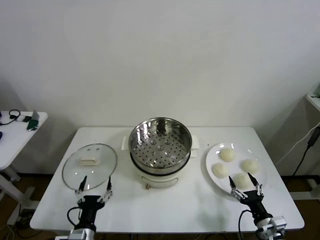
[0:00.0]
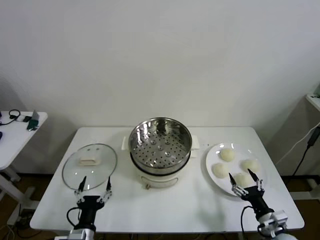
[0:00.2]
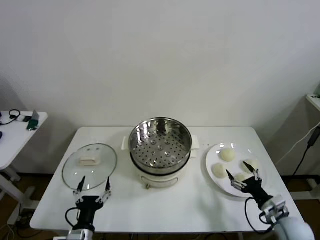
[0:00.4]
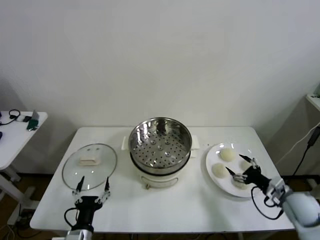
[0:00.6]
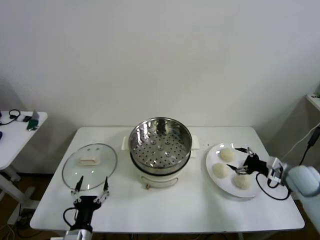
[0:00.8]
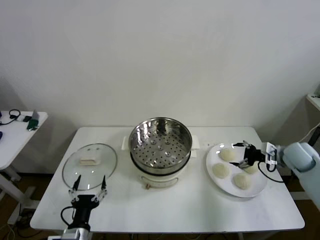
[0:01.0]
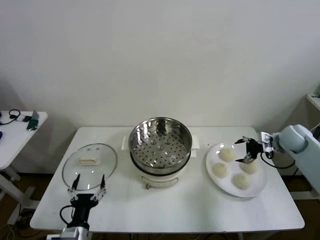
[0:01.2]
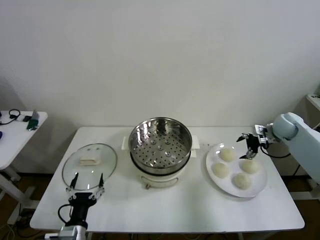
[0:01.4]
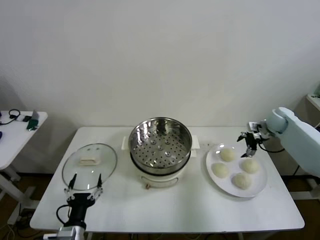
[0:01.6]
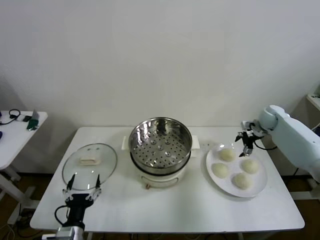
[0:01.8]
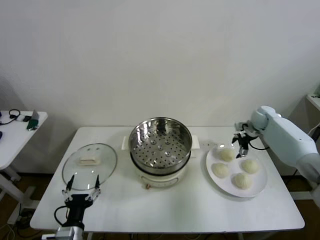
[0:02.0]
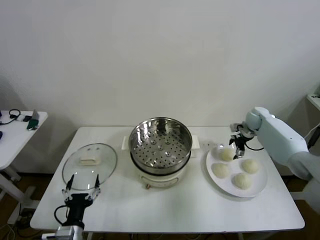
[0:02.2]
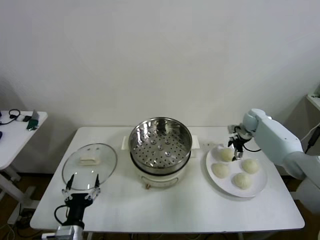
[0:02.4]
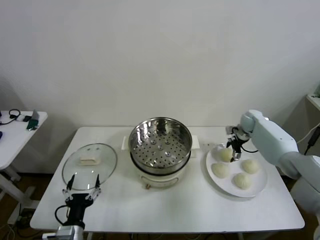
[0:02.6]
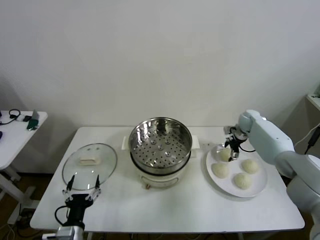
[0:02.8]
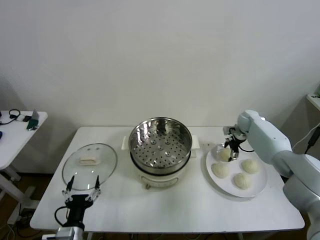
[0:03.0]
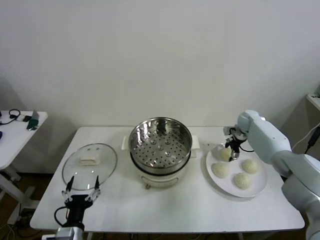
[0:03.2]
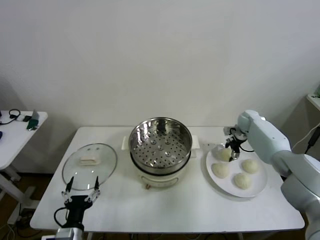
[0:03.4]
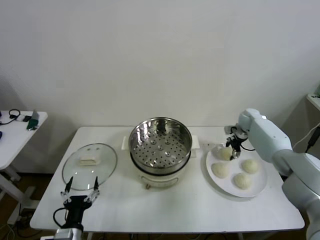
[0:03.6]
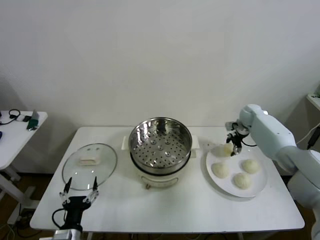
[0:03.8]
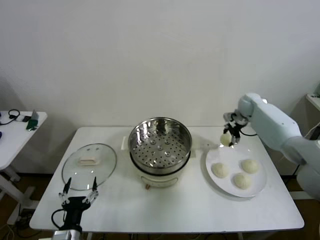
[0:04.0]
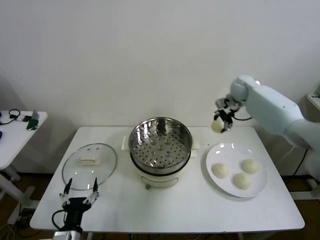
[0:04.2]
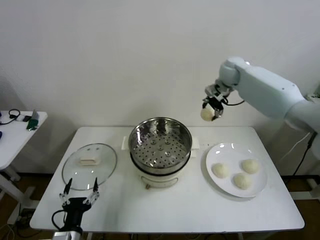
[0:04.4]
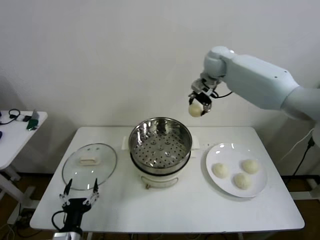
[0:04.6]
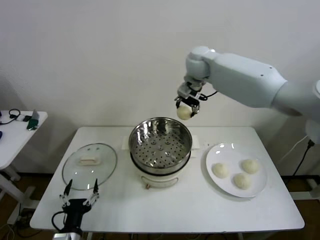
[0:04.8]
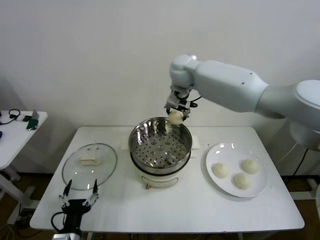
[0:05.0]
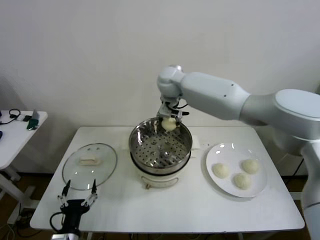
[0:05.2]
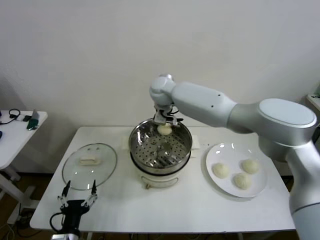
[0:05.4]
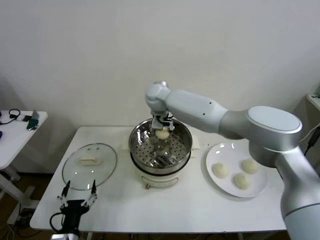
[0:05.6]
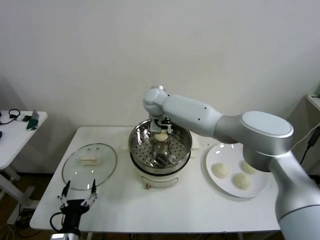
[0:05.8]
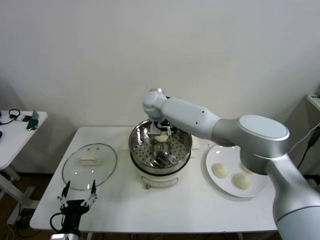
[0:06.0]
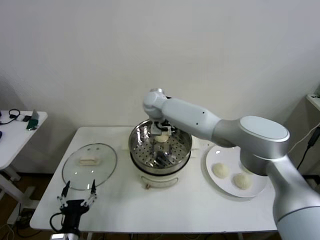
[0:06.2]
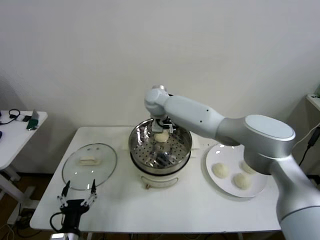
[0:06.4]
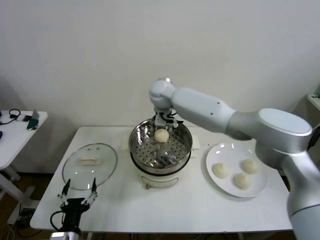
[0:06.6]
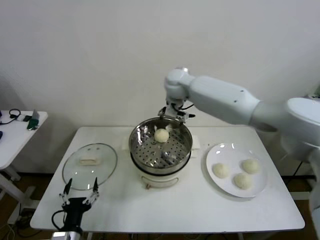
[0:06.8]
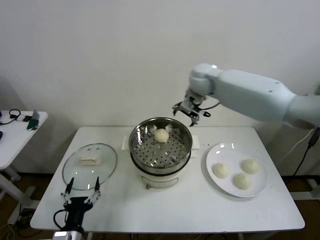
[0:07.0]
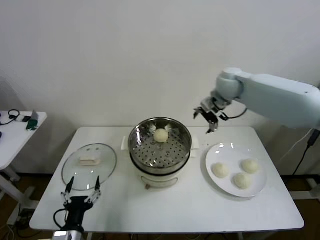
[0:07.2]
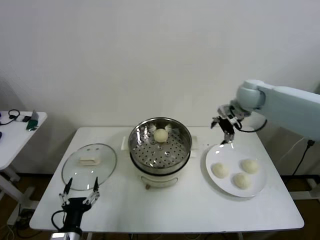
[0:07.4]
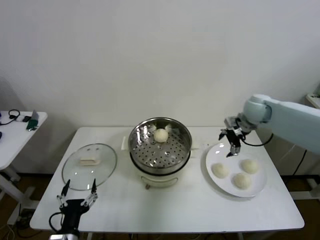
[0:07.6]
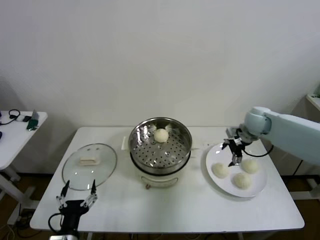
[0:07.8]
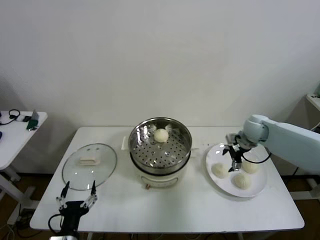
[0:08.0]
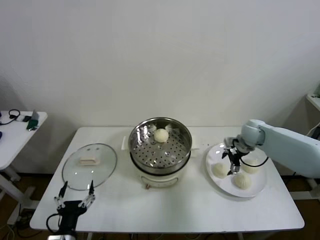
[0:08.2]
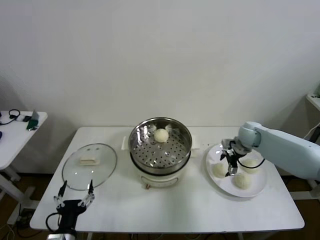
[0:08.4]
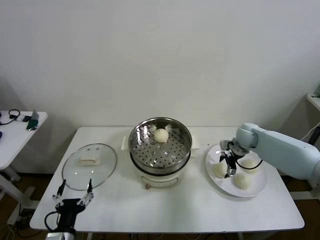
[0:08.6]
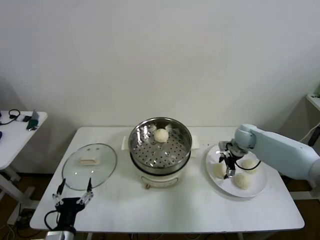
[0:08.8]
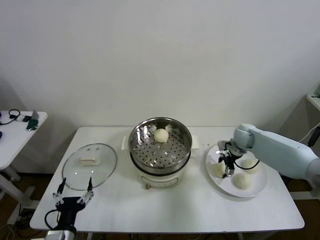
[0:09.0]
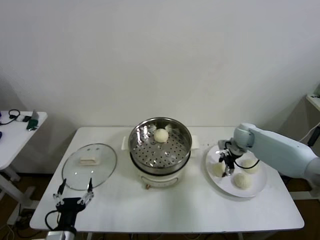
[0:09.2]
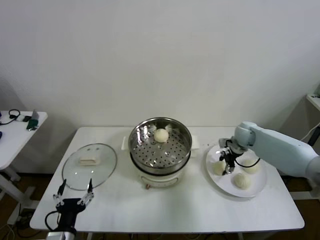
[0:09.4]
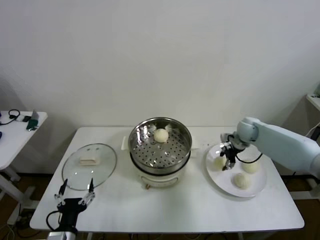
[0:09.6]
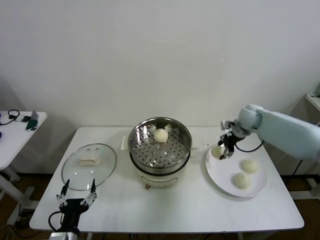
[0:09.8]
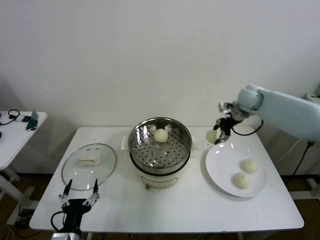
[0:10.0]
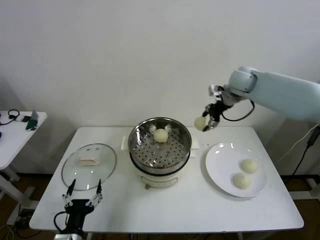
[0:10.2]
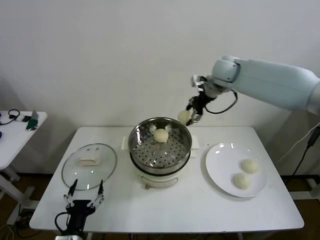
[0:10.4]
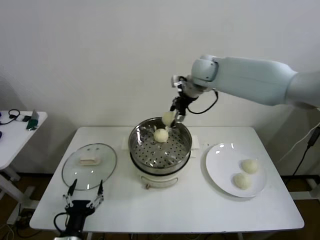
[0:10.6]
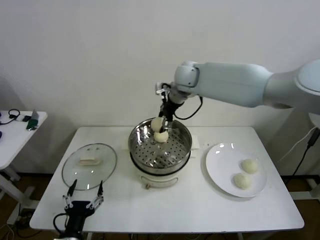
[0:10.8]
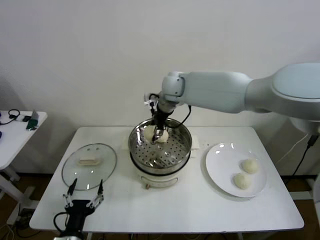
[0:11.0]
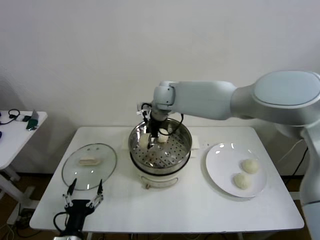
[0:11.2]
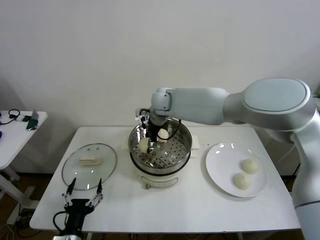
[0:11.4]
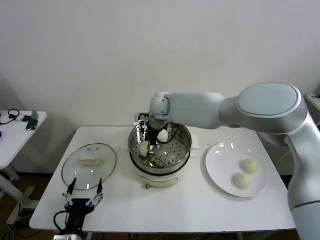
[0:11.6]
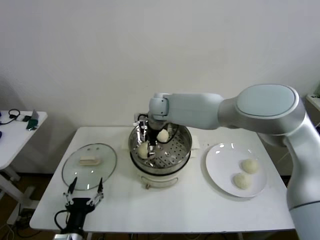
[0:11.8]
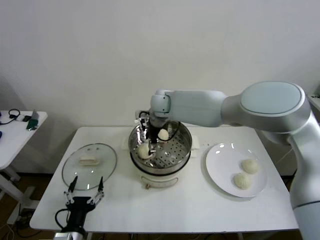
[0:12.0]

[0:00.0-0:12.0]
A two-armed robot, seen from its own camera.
Step, 0:00.0 to 0:03.6: Grasp the baozi in the plate with right gripper.
Step, 0:03.8 to 0:06.0: Place the baozi on the steamer with right gripper.
Step, 0:06.4 to 0:09.2: Grasp the baozi in the plate with right gripper.
Step, 0:09.4 to 0:11.8: Place the baozi on the steamer with right gripper.
0:01.6 to 0:03.0: The right gripper is displaced to the left and downward by some 10 cm, and closes up.
0:03.0 to 0:04.4: The right gripper shifts roughly 30 cm upward and to the left, and closes its fingers.
0:04.4 to 0:06.0: The right gripper shifts roughly 25 cm to the left and downward, and opens up.
0:06.0 to 0:07.6: The right gripper travels to the right by roughly 35 cm.
0:07.6 to 0:09.0: The right gripper moves downward, about 10 cm, and closes its fingers.
0:09.0 to 0:10.4: The right gripper heads upward and to the left, covering some 30 cm.
0:10.4 to 0:12.0: The right gripper heads to the left and downward, covering some 20 cm, and opens its fingers.

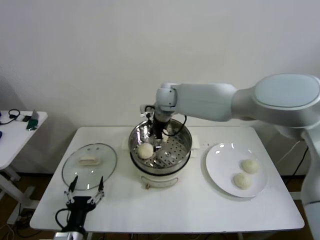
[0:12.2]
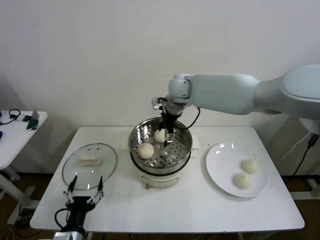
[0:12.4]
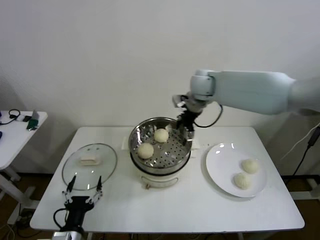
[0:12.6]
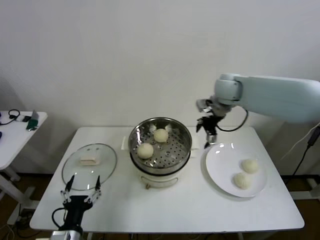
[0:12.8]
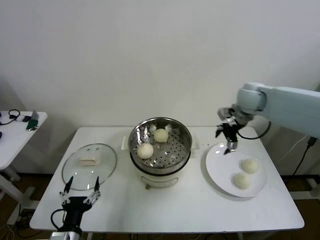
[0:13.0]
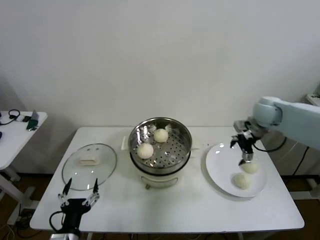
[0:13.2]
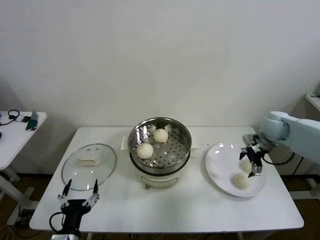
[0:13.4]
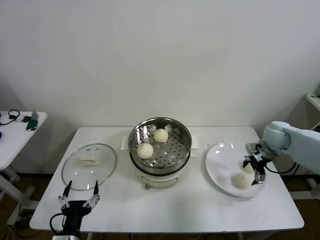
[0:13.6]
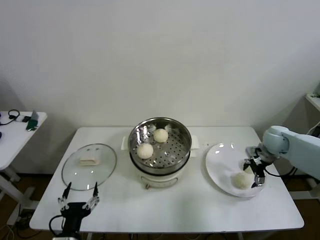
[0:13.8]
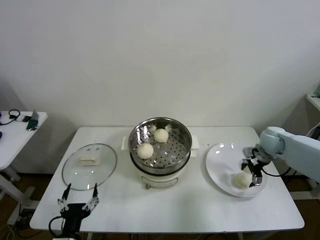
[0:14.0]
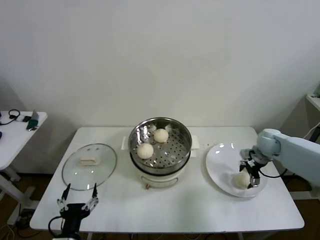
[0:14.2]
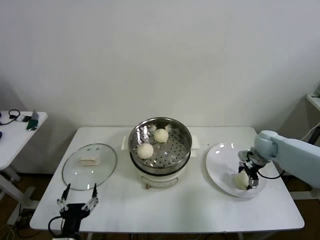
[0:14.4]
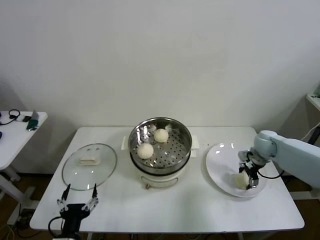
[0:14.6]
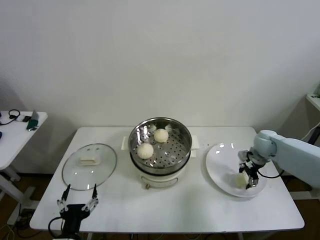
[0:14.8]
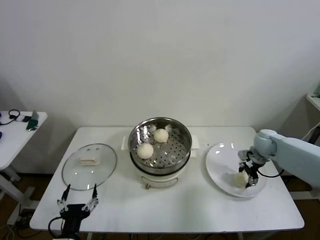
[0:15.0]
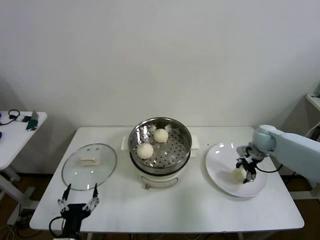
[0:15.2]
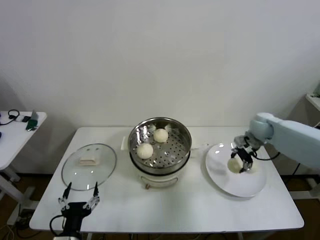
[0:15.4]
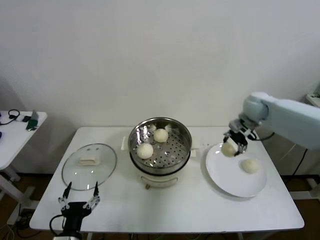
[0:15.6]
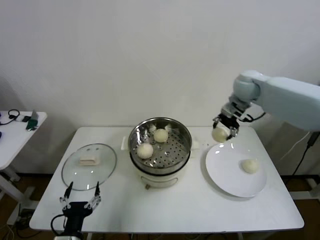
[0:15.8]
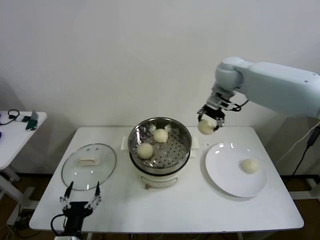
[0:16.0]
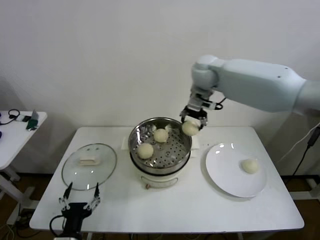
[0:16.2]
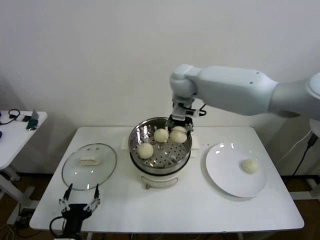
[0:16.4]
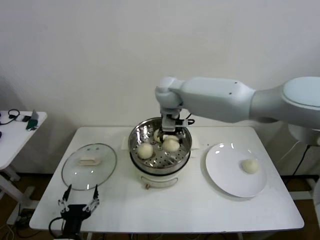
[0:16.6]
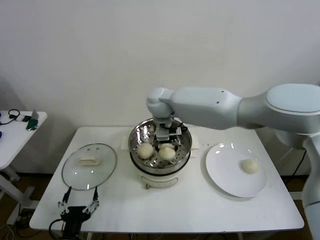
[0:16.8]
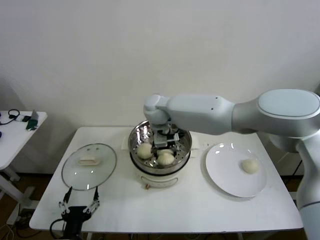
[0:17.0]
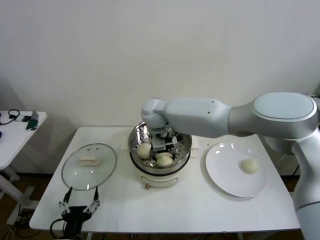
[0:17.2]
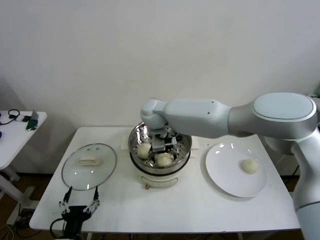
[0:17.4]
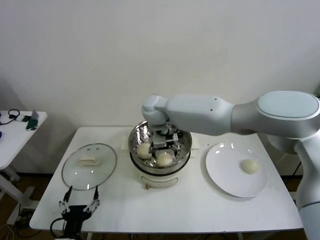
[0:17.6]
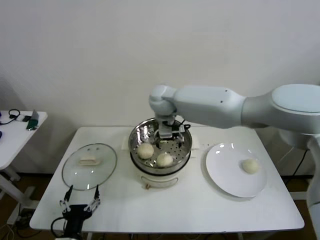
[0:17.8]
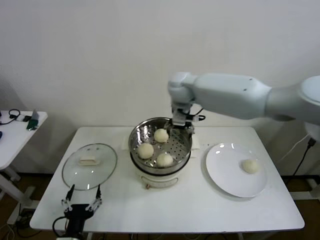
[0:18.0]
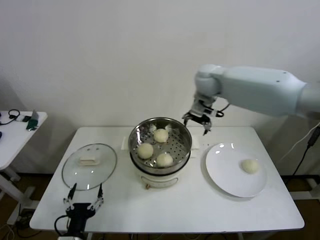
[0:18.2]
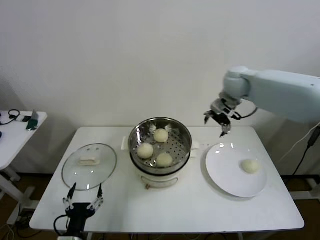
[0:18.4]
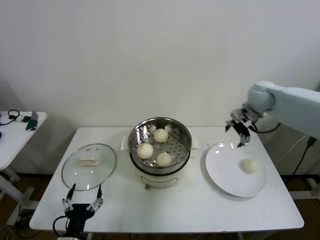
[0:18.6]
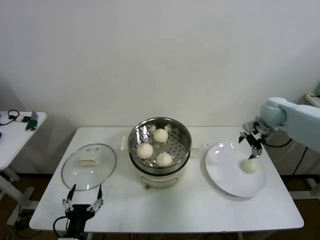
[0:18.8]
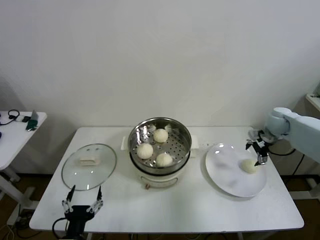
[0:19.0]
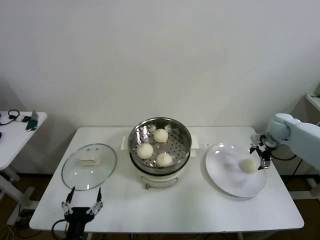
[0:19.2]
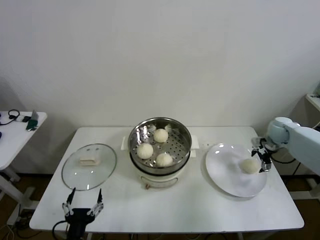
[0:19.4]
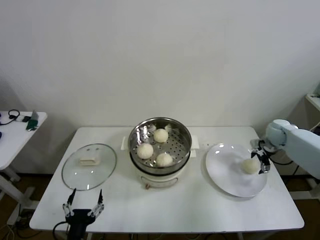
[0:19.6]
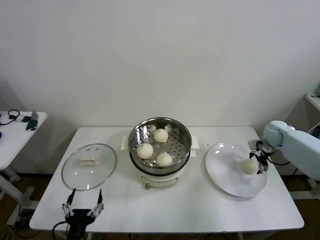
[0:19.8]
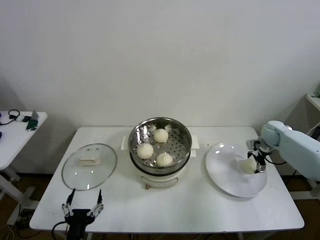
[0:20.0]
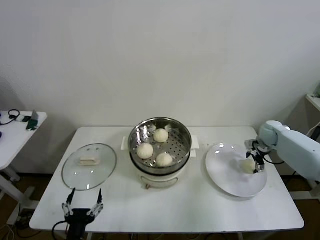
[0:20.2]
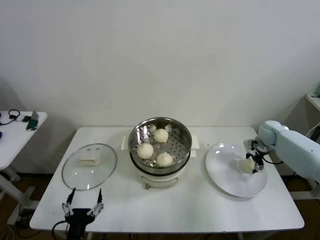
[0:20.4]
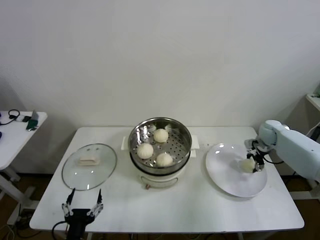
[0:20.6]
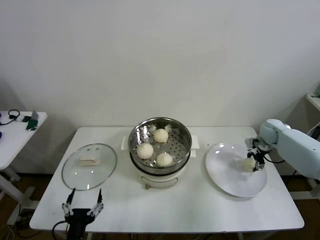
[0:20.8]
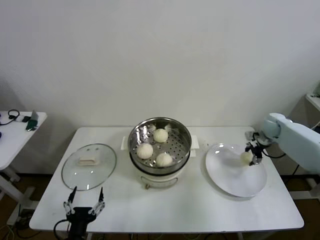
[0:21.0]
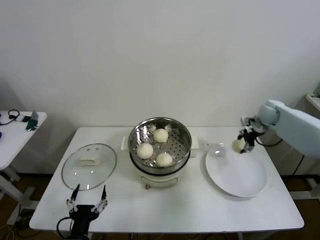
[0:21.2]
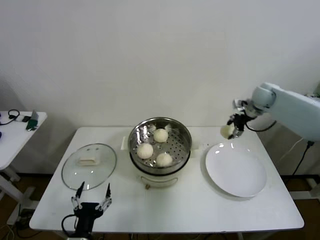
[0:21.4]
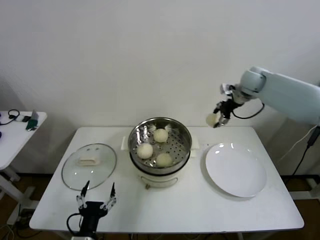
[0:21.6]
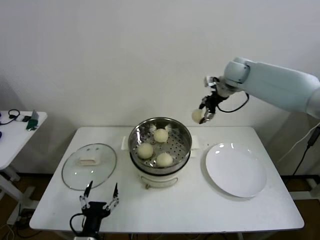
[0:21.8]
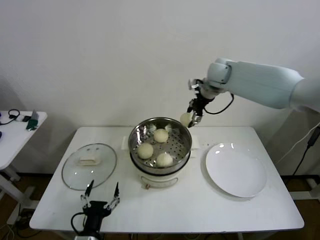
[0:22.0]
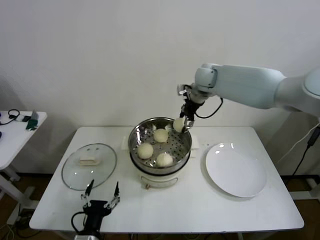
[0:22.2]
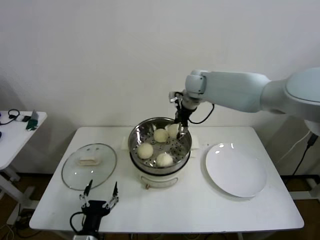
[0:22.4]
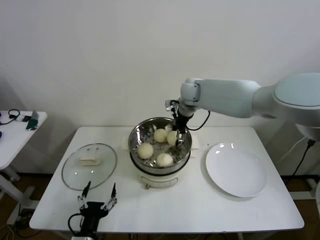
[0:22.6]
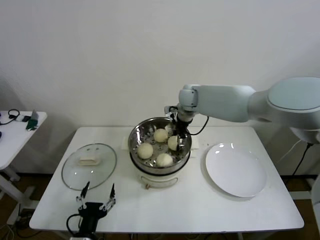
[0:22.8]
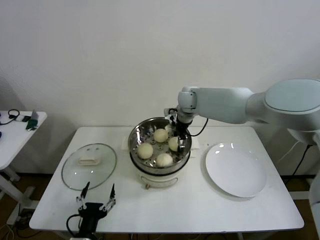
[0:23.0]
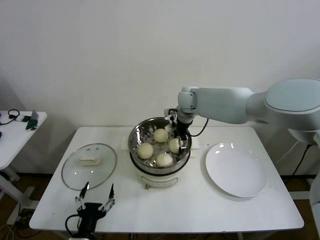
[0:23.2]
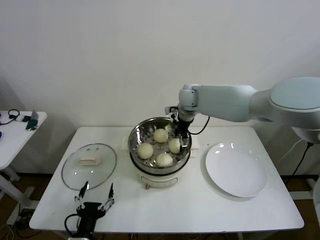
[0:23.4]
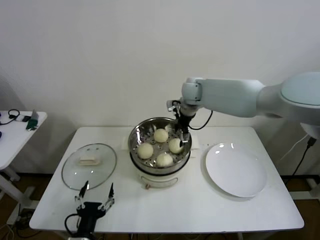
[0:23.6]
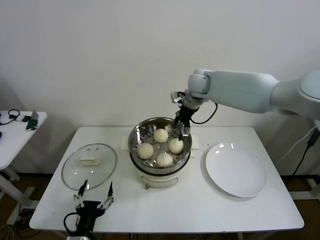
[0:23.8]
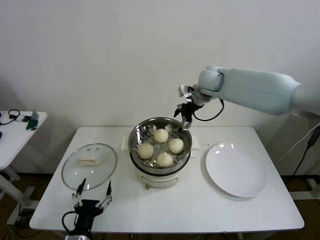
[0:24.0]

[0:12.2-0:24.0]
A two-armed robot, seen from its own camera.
Step, 0:12.2 to 0:14.8: Grasp the baozi in the plate with right gripper.
Step, 0:15.0 to 0:17.6: Place the baozi on the steamer with right gripper.
Step, 0:17.8 to 0:20.6: Grasp the baozi in the plate with right gripper.
Step, 0:20.8 to 0:23.2: Place the baozi on the steamer with right gripper.
0:12.2 to 0:13.6: The right gripper shifts about 35 cm to the right.
0:13.6 to 0:15.2: The right gripper closes.
0:15.2 to 0:16.6: The right gripper heads to the left and upward, covering about 40 cm.
0:16.6 to 0:18.2: The right gripper moves to the right, about 15 cm, and opens up.
0:18.2 to 0:19.6: The right gripper moves to the right and downward, about 35 cm.
0:19.6 to 0:21.0: The right gripper closes its fingers.
0:21.0 to 0:22.6: The right gripper goes roughly 35 cm to the left and upward.
0:22.6 to 0:24.0: The right gripper moves to the right, approximately 5 cm, and opens.
